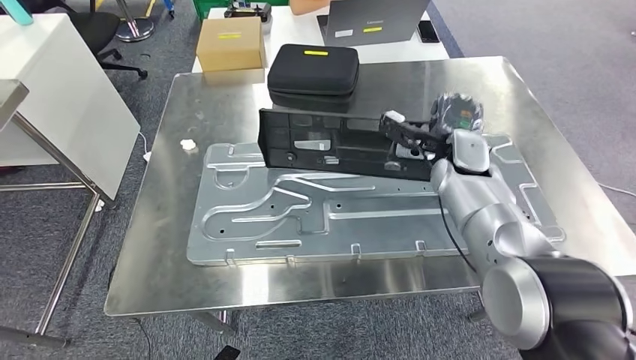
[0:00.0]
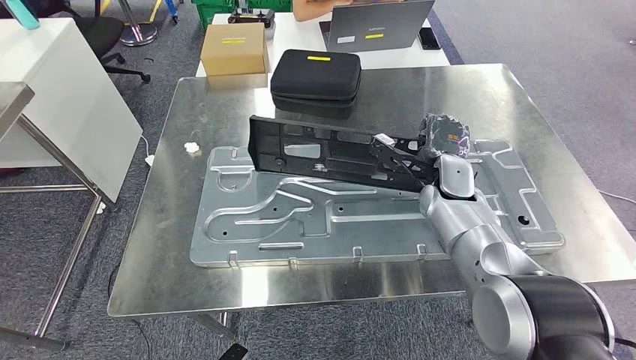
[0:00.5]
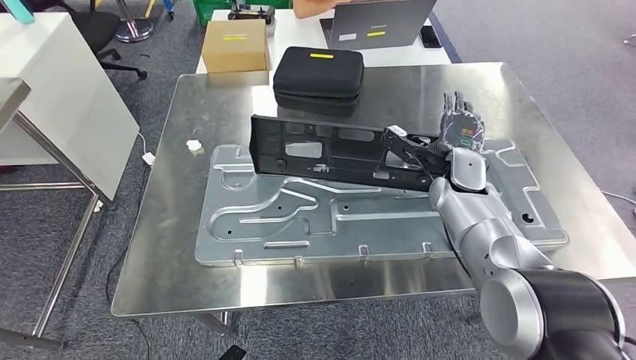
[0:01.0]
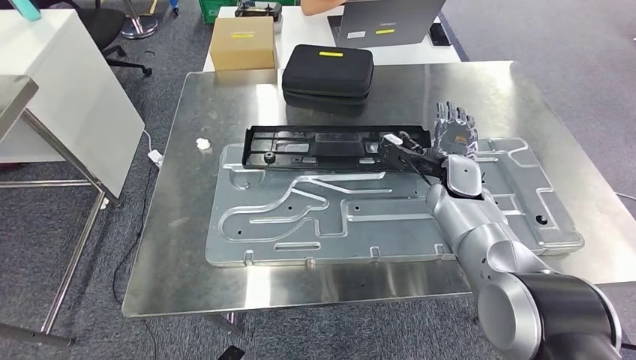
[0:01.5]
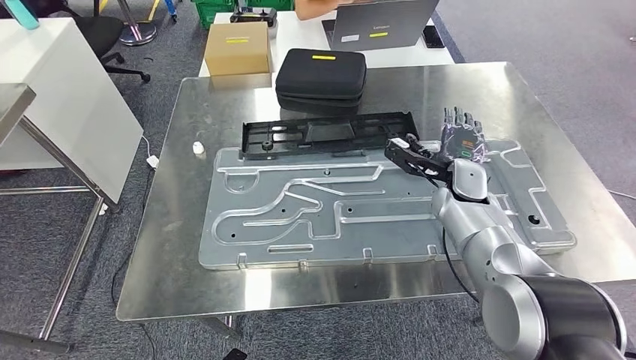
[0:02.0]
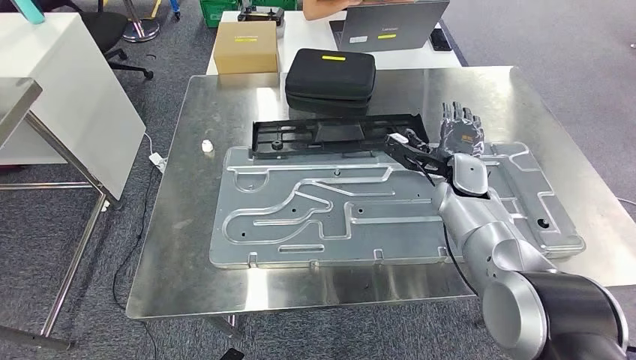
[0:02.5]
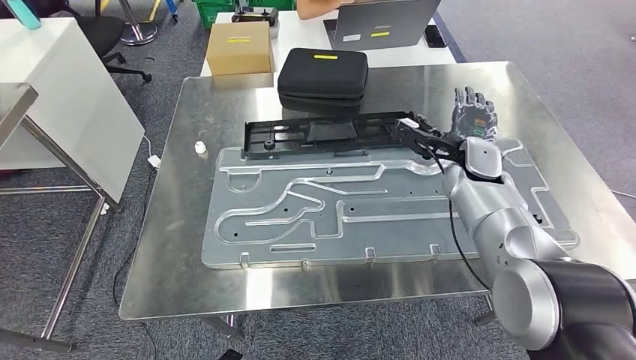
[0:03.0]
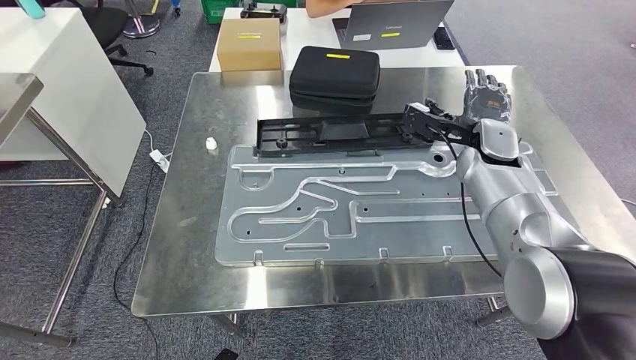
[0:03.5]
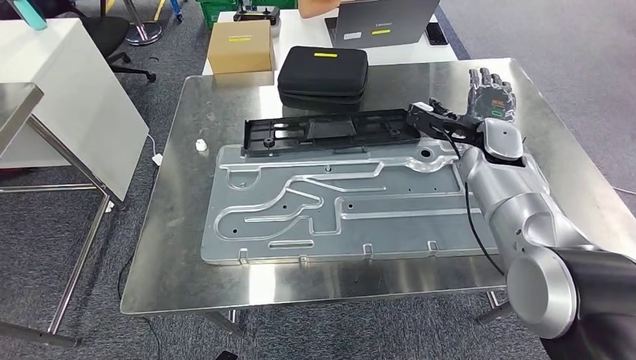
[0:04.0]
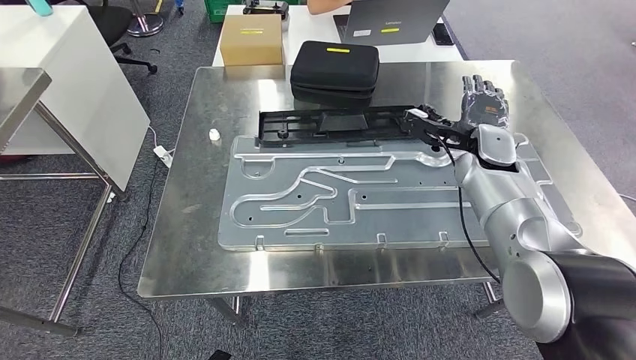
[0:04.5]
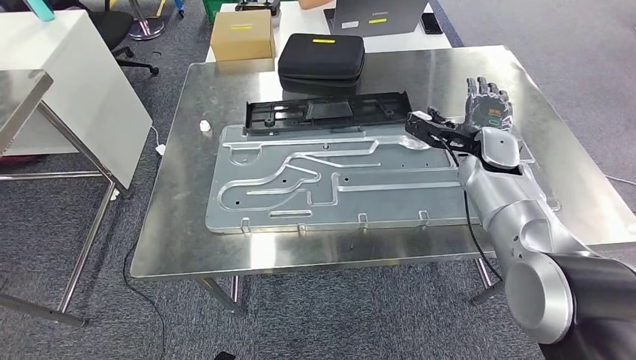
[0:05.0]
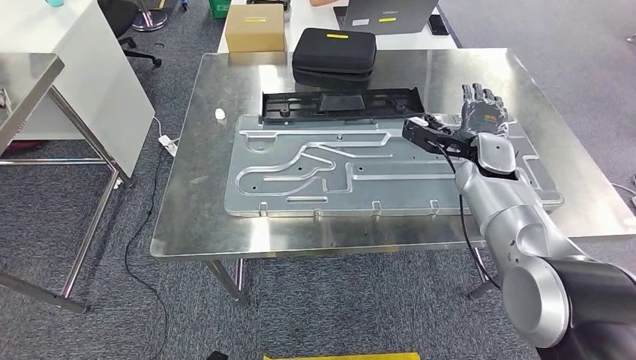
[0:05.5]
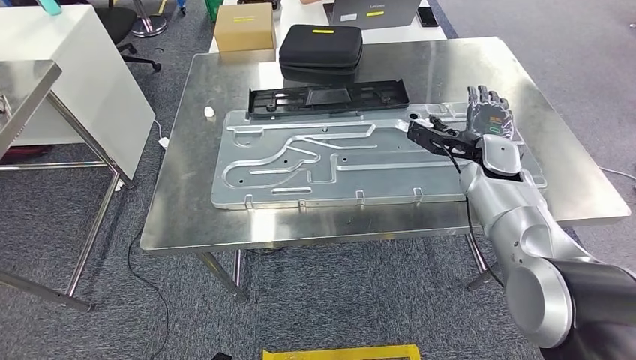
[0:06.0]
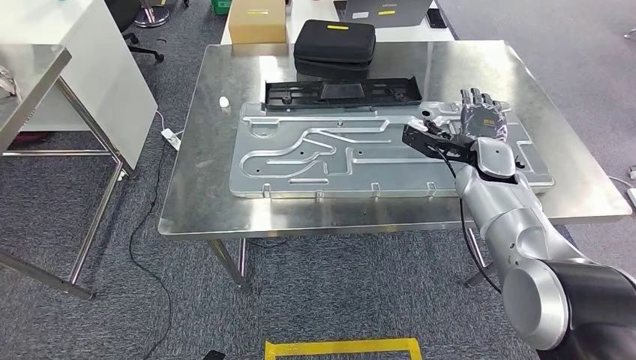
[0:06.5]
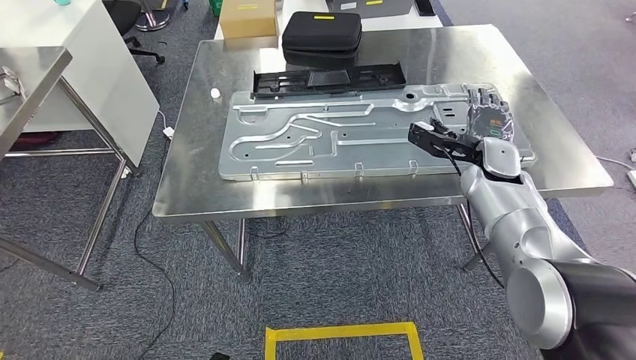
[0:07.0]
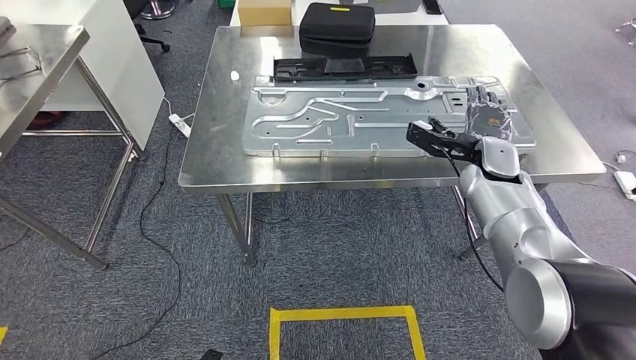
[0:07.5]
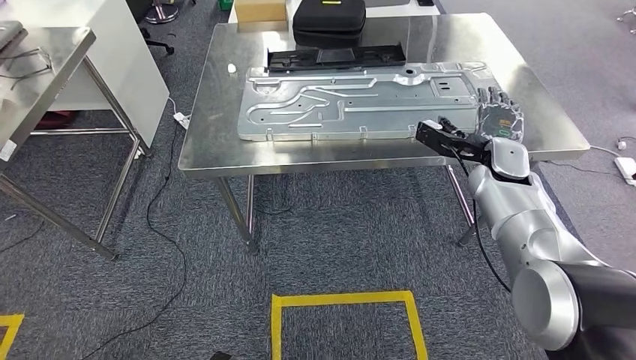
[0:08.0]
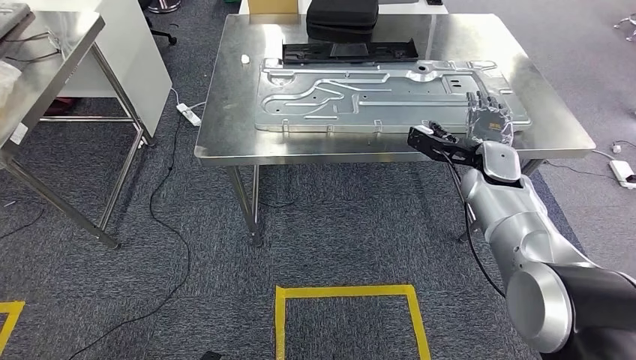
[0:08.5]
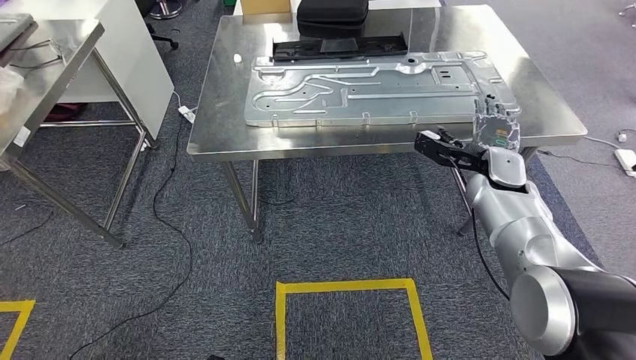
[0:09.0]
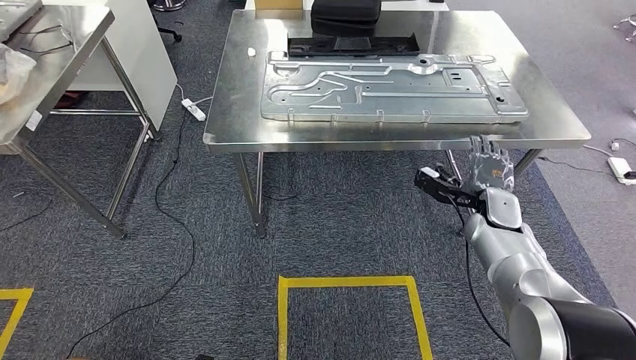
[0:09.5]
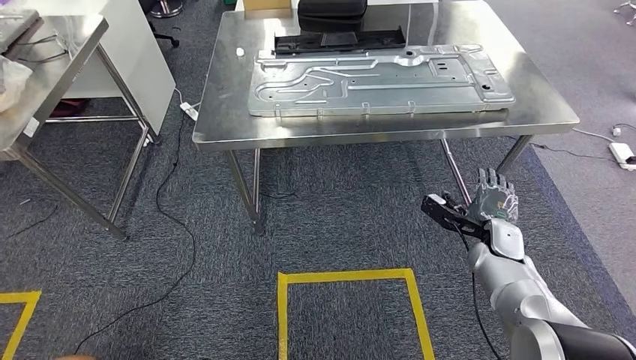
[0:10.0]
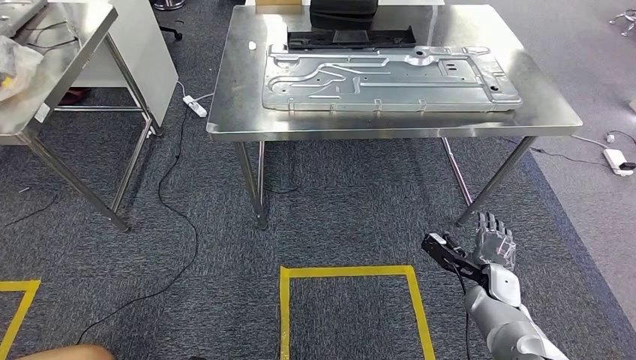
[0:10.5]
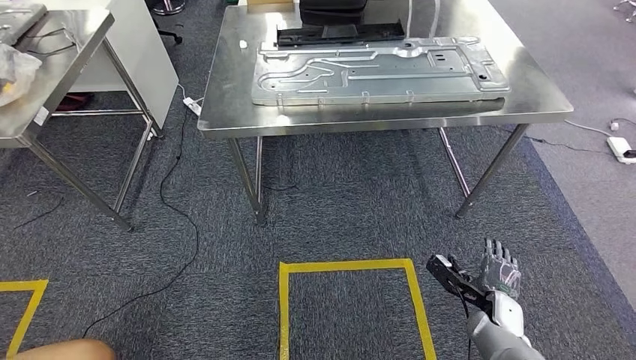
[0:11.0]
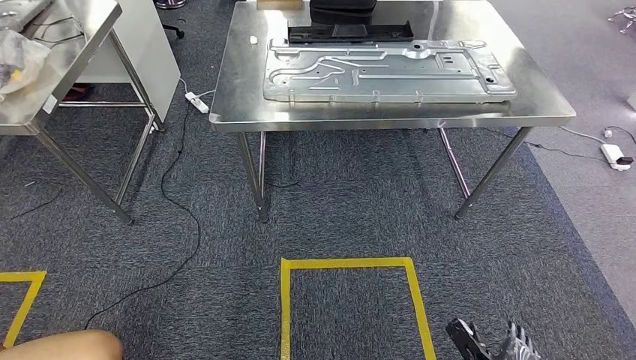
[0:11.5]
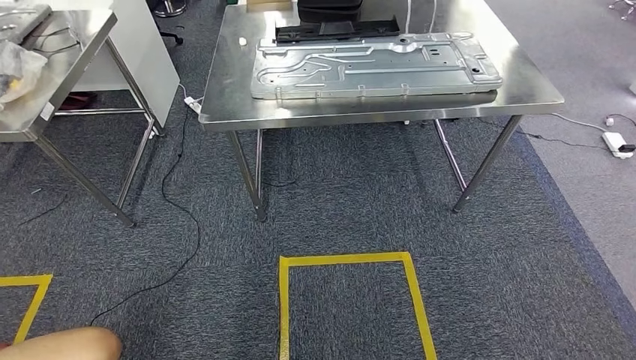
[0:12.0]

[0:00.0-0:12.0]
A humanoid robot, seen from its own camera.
Step, 0:00.0 to 0:02.5: Insert the large material into the corresponding hole on the workbench.

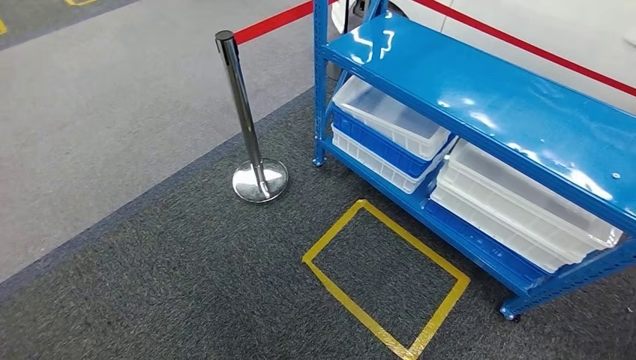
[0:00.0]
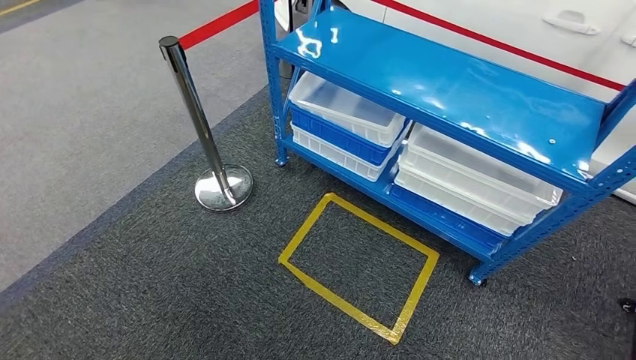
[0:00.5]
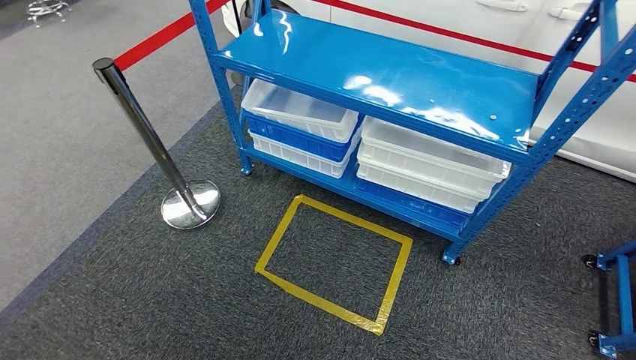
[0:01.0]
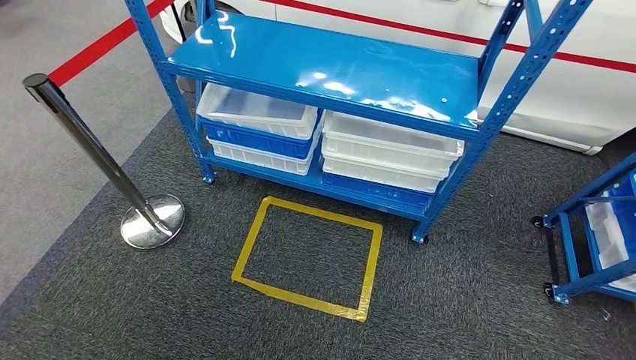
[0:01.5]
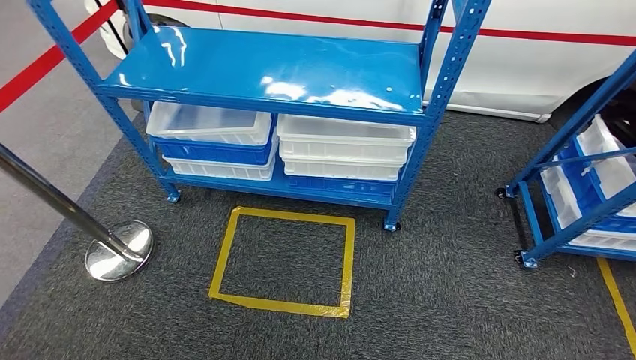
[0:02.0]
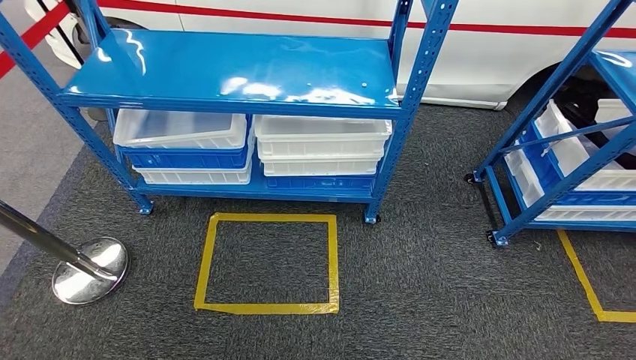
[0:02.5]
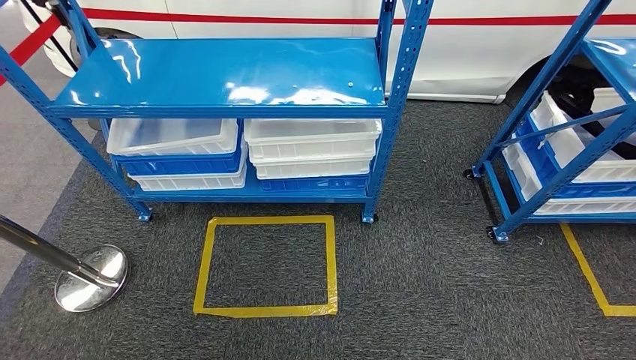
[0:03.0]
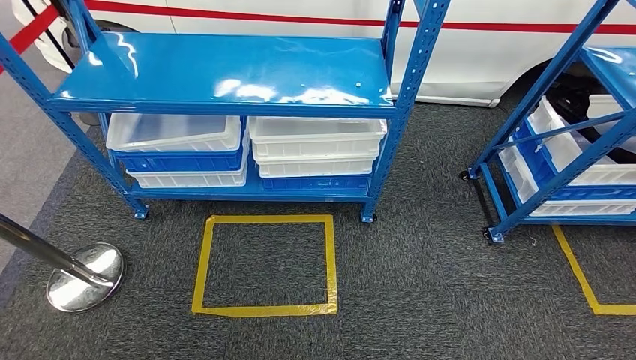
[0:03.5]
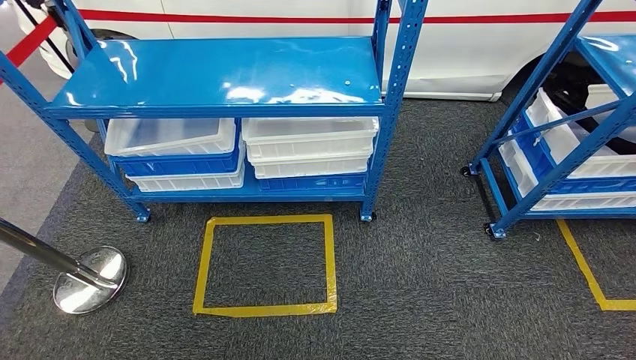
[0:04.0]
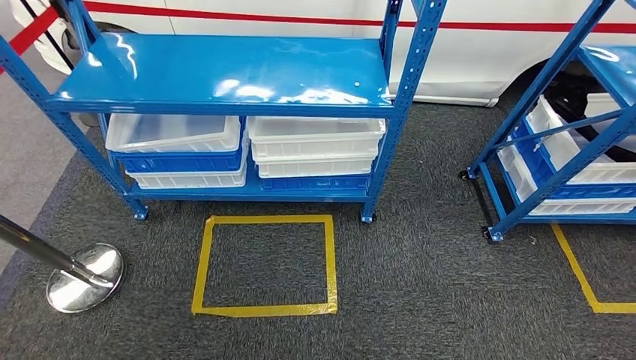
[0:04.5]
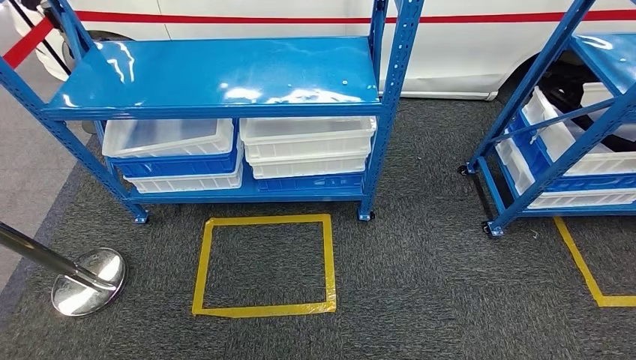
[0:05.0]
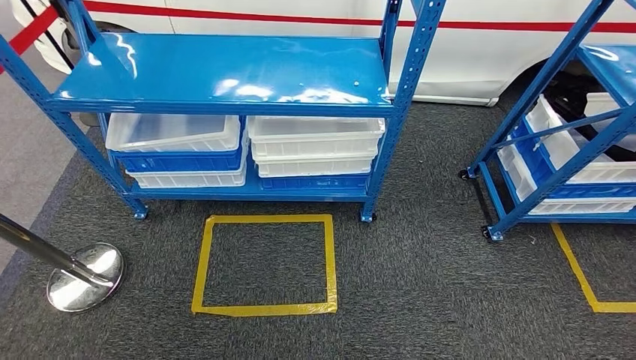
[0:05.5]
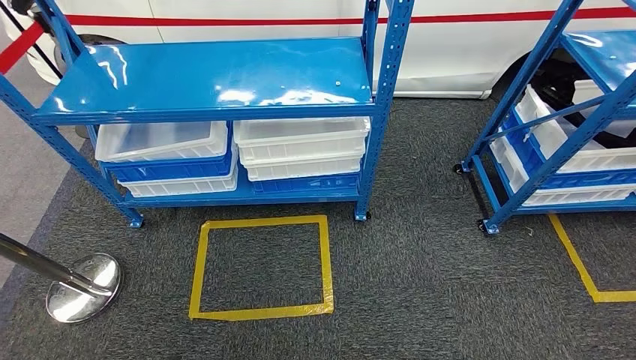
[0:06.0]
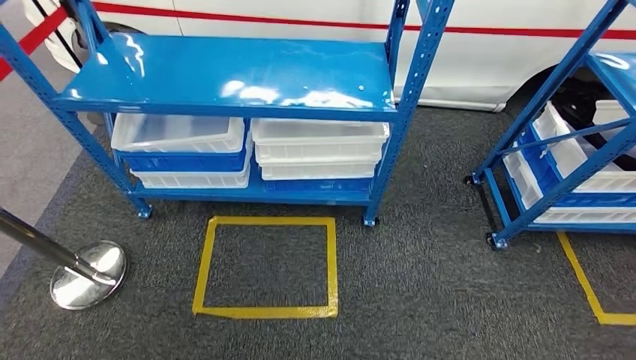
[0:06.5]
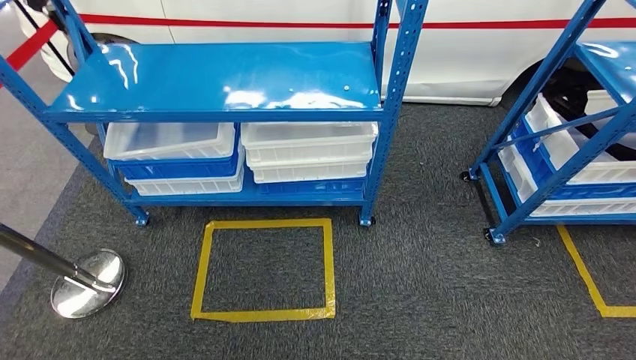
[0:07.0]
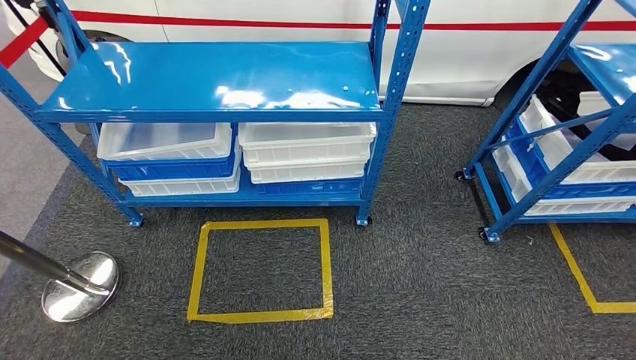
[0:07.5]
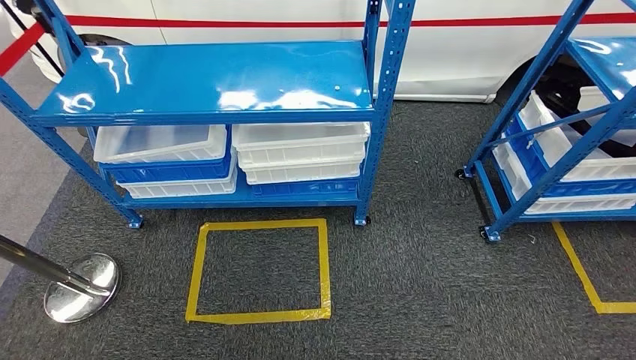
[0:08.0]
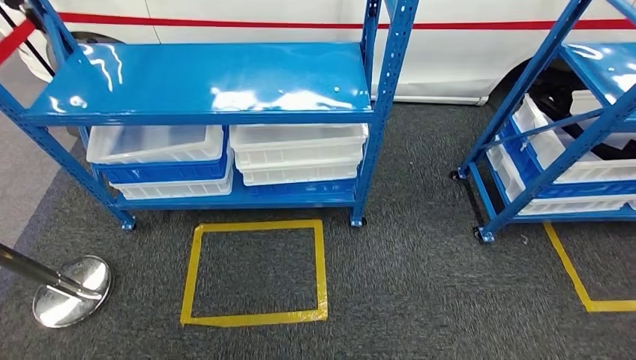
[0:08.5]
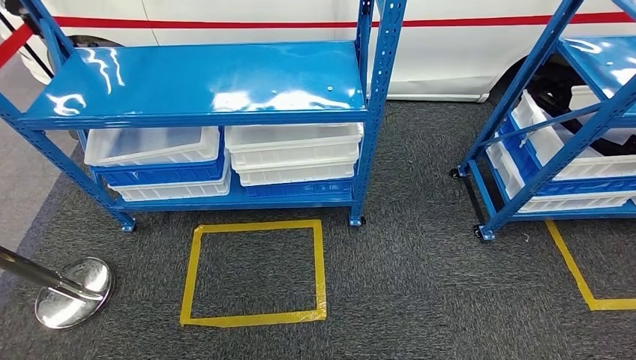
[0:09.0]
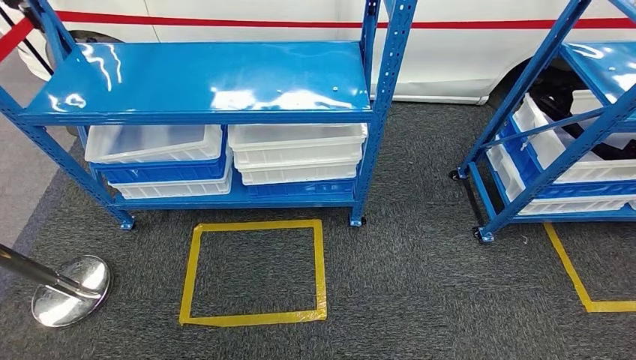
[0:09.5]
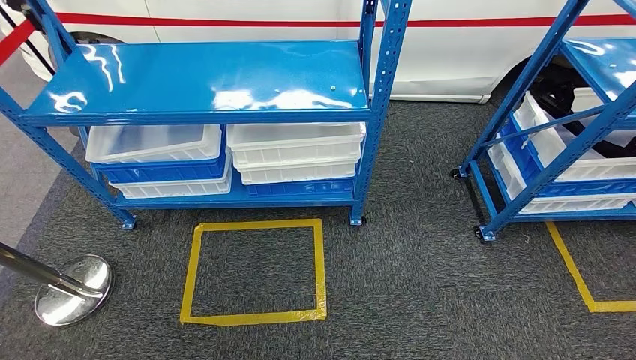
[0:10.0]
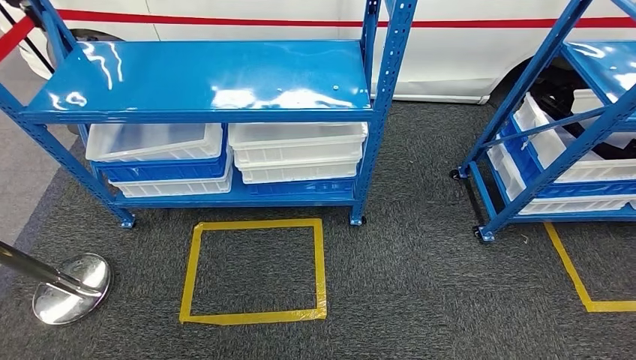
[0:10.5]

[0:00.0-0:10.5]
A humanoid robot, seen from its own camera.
Step, 0:00.0 to 0:10.5: Move to the initial position of the shelf.
0:08.5 to 0:10.5: The left hand heads forward, covering approximately 10 cm.
